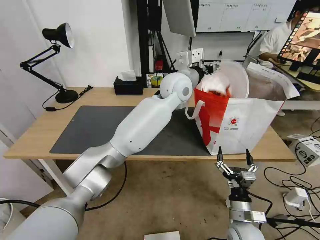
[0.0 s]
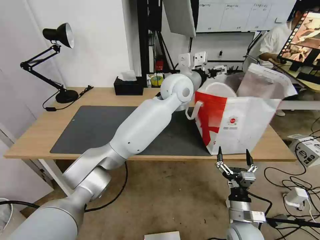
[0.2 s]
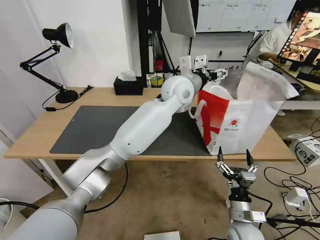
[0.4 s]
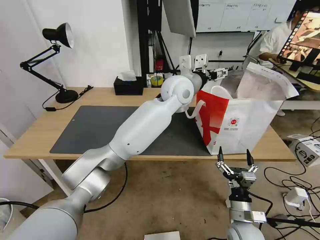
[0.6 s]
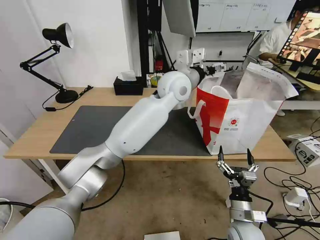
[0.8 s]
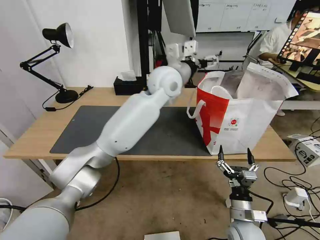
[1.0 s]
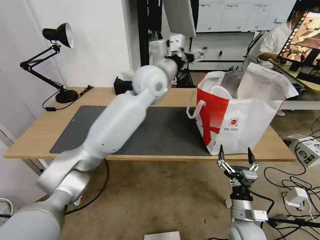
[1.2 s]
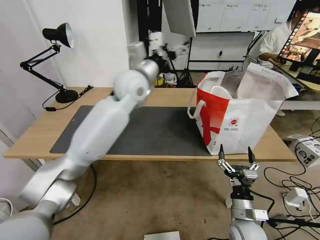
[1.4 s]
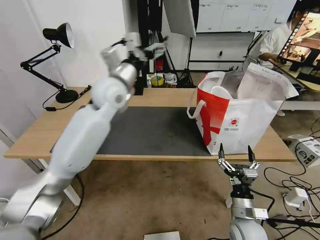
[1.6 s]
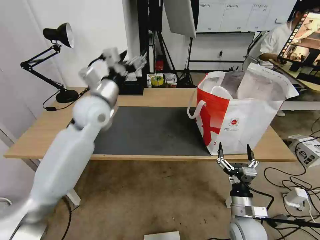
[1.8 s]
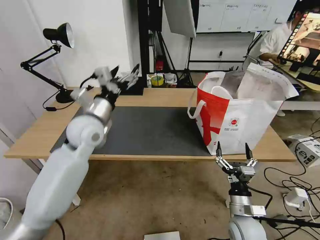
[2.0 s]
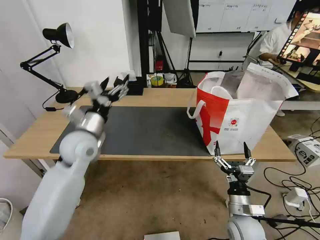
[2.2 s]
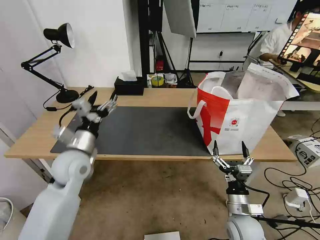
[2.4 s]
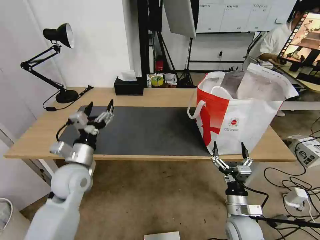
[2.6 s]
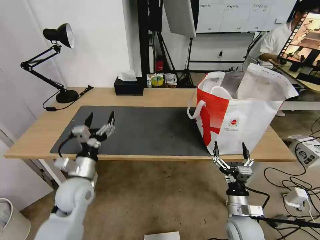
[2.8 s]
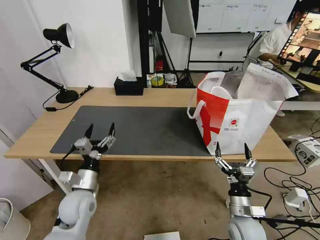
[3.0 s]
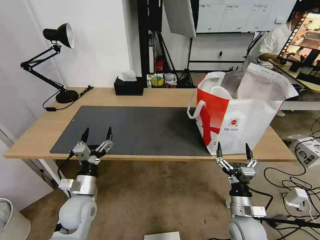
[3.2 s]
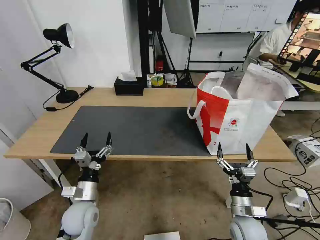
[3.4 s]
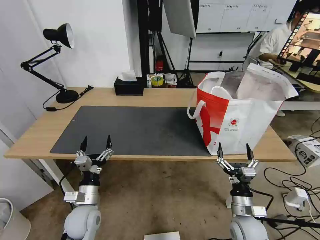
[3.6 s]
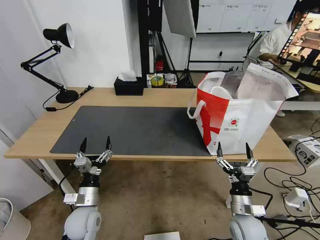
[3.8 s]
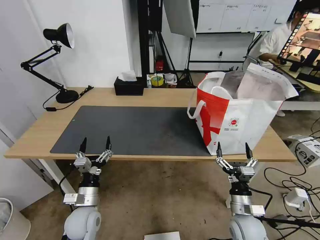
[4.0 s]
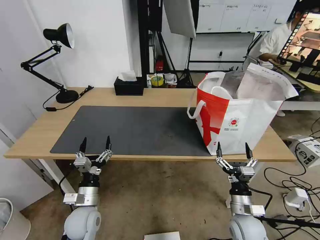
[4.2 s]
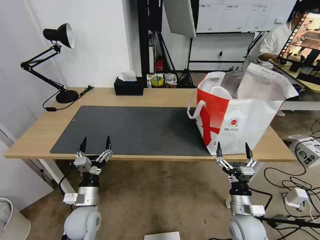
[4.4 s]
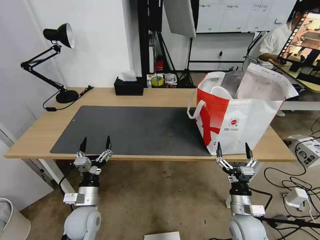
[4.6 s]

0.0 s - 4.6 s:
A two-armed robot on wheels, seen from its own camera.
Task of the whole recording: Pick up the trash from the table and place it into the takeout bag.
0.0 s - 1.6 s: The left gripper travels to the left by some 20 cm.
1.6 s - 3.0 s: The left gripper is displaced downward and backward by some 35 cm.
3.0 s - 4.6 s: The left gripper moves downward, roughly 5 cm.

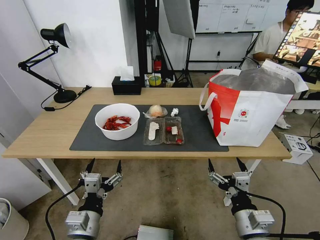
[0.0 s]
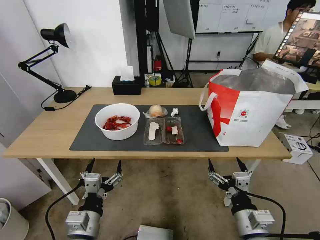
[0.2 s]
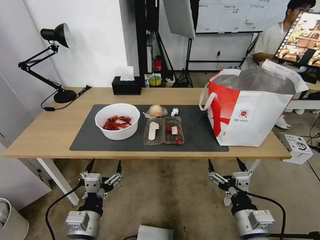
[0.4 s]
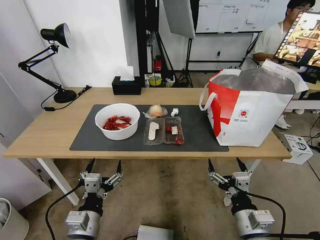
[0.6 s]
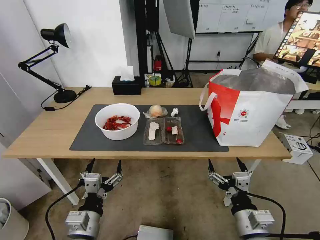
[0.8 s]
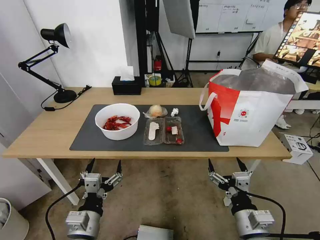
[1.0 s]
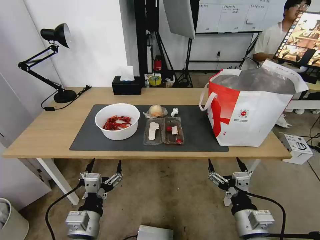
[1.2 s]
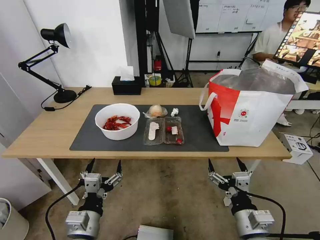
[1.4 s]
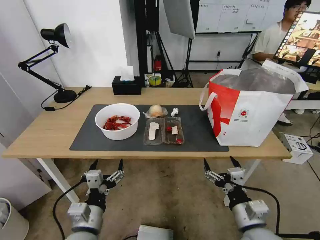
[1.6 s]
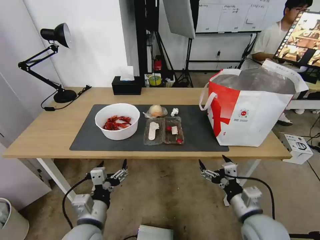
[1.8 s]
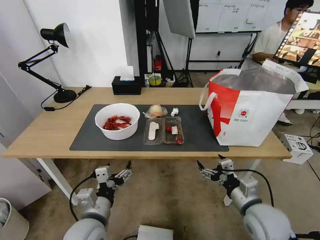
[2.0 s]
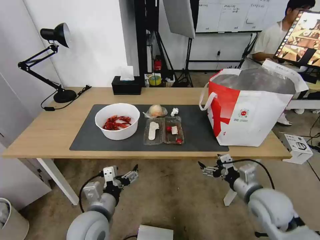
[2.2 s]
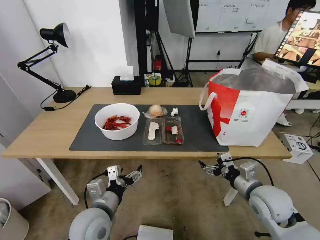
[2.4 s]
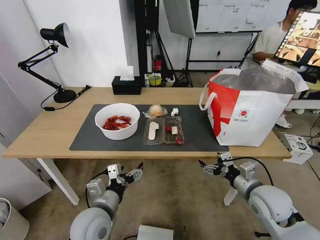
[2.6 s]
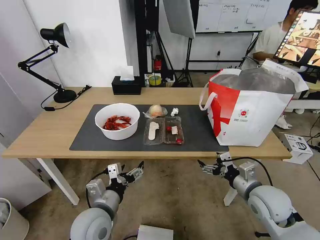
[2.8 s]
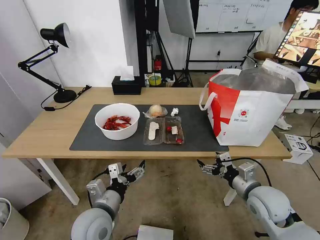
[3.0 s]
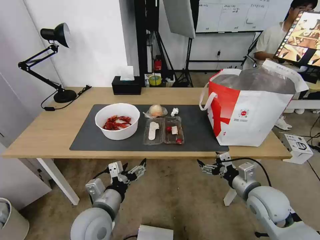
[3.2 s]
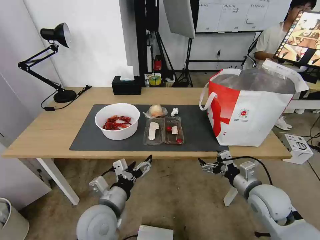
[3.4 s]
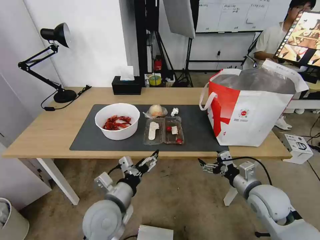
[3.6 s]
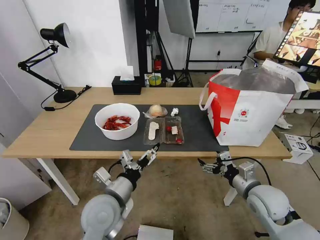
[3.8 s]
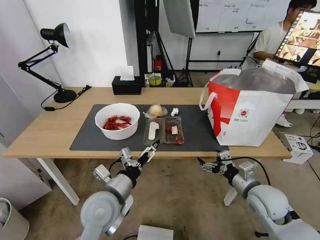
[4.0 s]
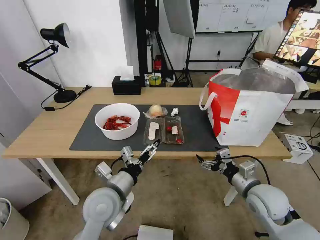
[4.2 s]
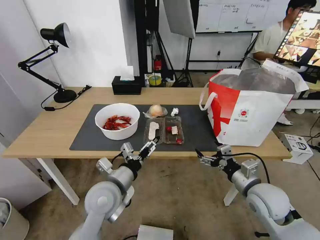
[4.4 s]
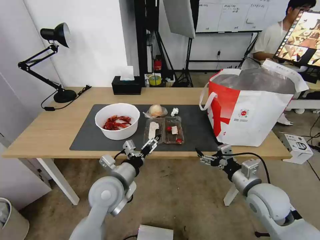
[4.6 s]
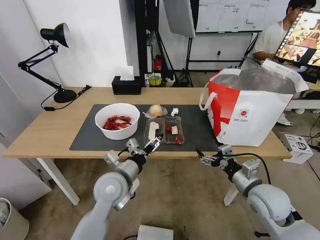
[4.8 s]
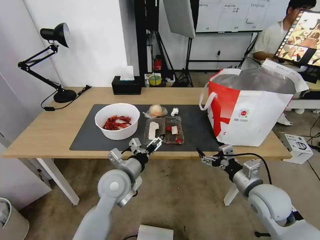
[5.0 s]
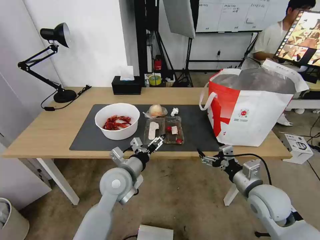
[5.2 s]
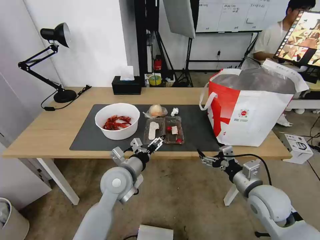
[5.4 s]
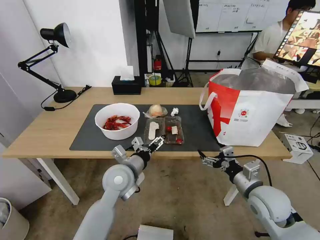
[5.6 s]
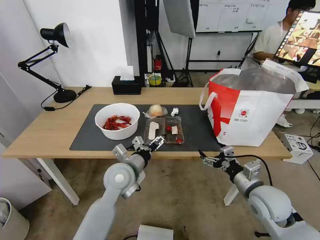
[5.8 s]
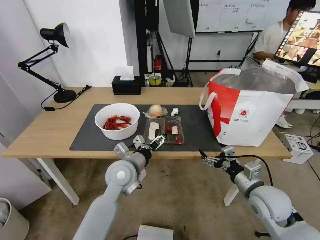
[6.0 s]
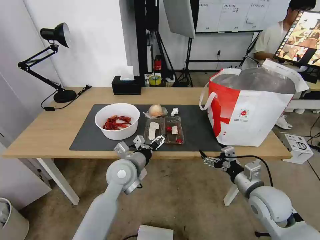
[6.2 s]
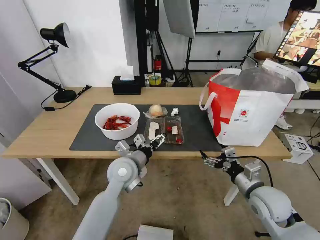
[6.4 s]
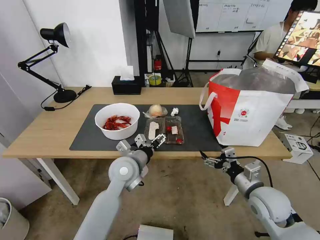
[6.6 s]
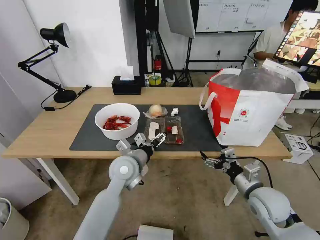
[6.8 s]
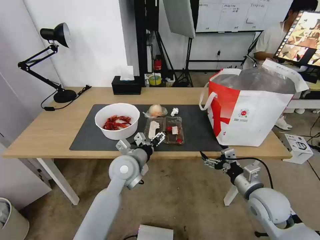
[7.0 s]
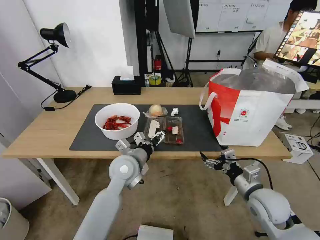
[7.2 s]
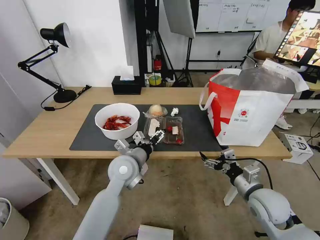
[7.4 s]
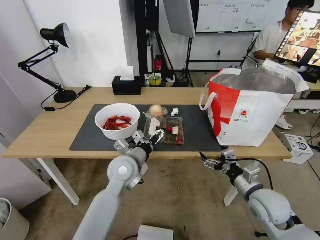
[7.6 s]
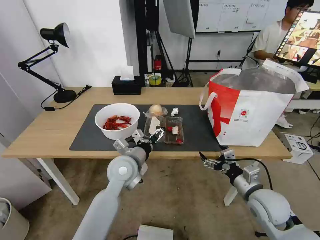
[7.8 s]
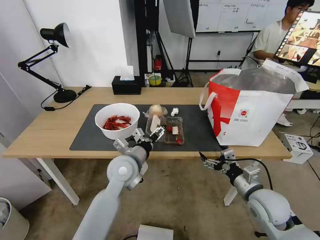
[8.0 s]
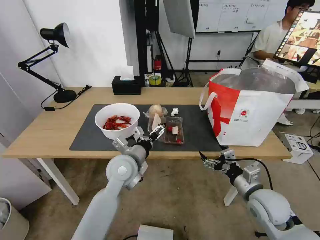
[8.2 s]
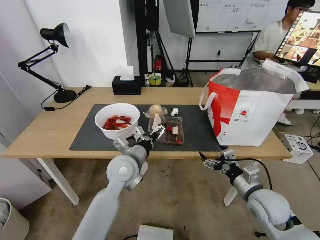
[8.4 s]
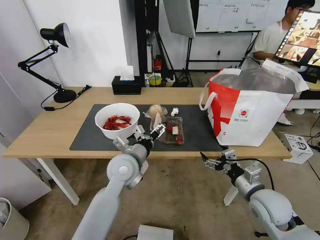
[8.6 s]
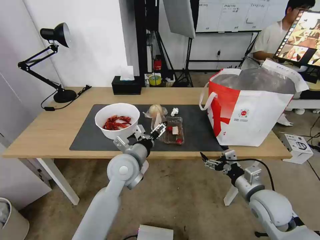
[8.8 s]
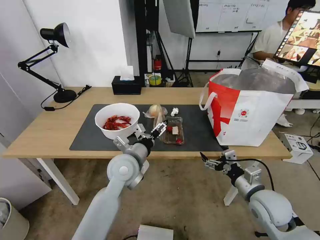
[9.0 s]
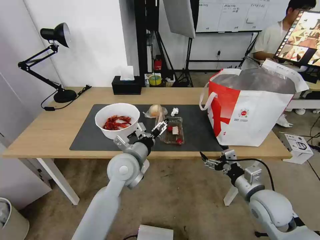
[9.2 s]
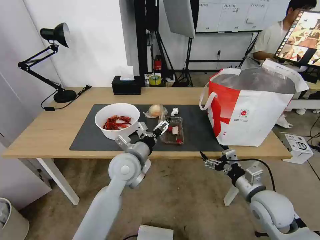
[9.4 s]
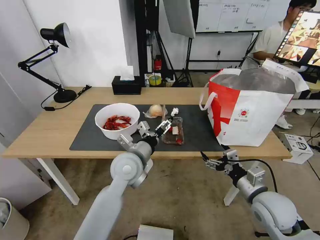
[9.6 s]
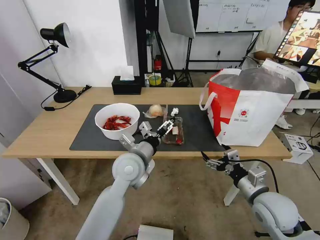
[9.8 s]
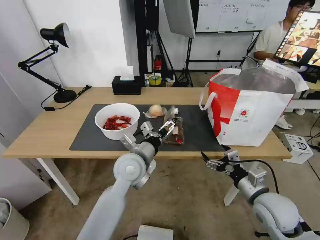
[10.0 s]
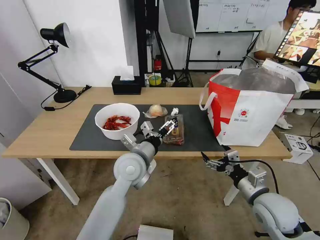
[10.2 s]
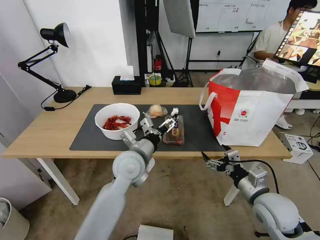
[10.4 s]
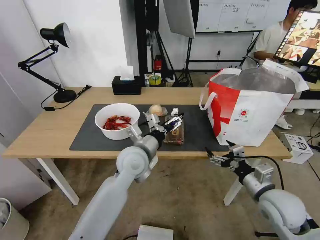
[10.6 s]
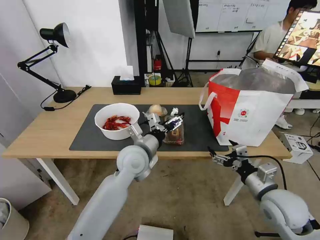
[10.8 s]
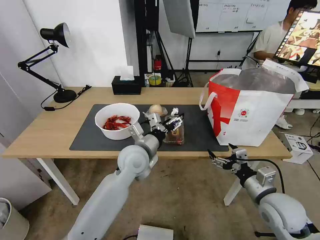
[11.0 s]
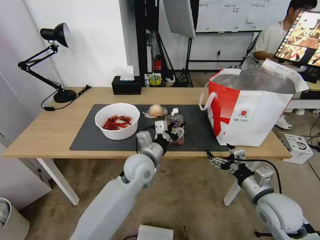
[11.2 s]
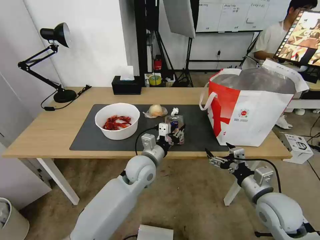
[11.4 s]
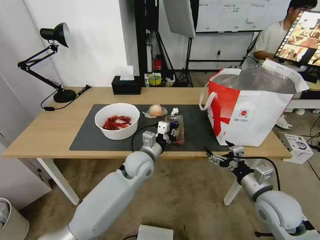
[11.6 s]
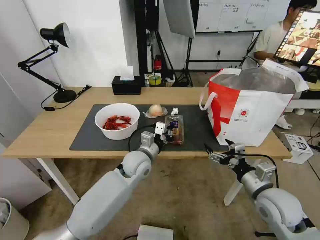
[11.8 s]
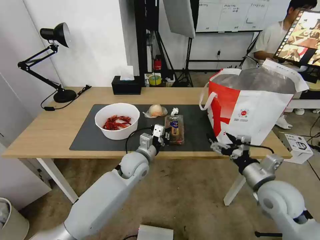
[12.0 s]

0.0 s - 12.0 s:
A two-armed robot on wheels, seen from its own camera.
Task of the whole recording: Pick up the trash from the table and place it into the takeout bag.
1.6 s - 3.0 s: The left gripper goes roughly 5 cm forward. The right gripper travels forward and to the right by about 10 cm.
3.0 s - 4.4 s: The left gripper moves forward, about 5 cm.
4.4 s - 6.0 s: The left gripper moves forward, some 5 cm.
6.0 s - 10.4 s: The grippers make only small movements.
10.4 s - 12.0 s: The left gripper goes approximately 10 cm downward, and closes.

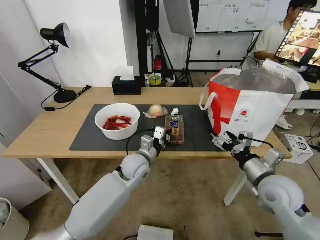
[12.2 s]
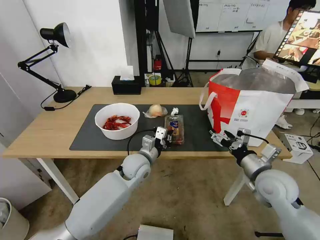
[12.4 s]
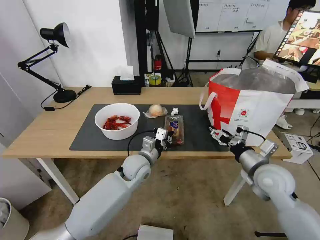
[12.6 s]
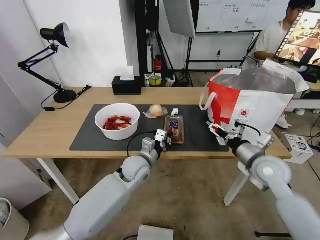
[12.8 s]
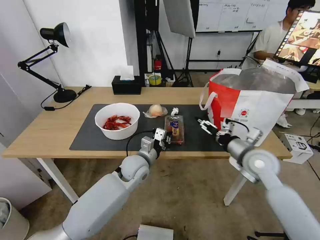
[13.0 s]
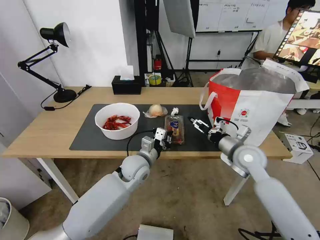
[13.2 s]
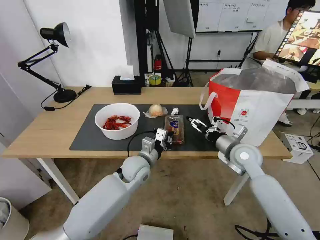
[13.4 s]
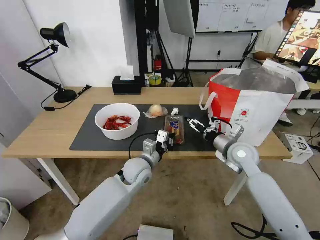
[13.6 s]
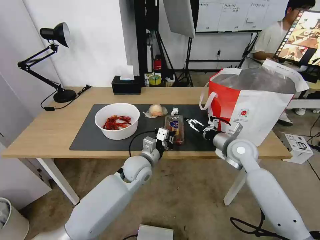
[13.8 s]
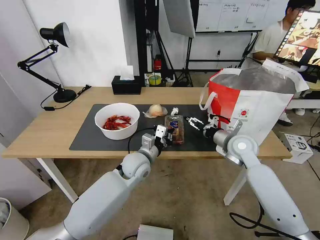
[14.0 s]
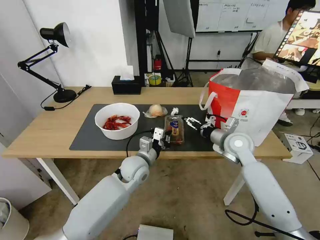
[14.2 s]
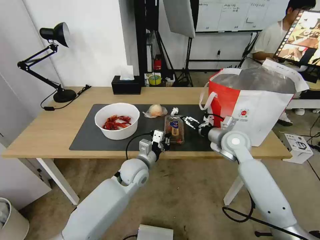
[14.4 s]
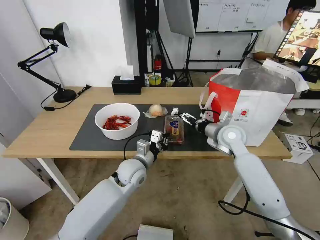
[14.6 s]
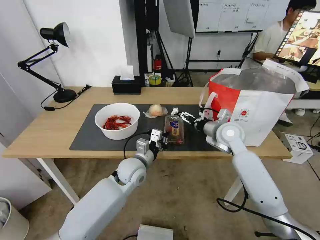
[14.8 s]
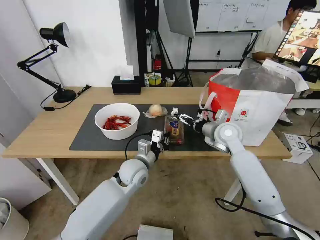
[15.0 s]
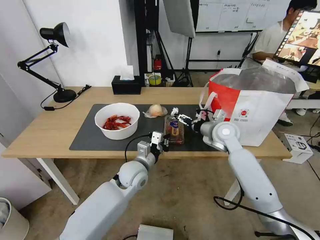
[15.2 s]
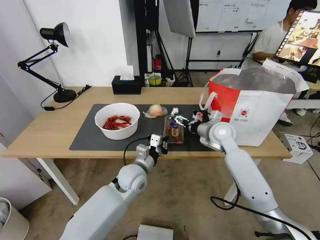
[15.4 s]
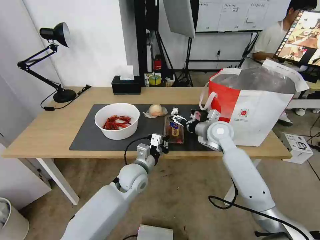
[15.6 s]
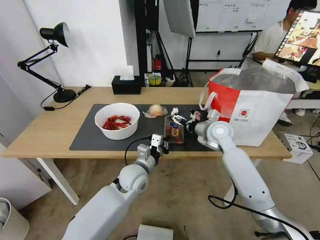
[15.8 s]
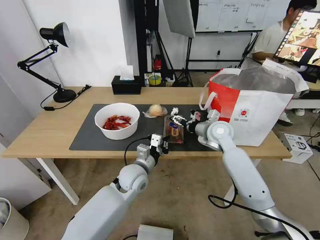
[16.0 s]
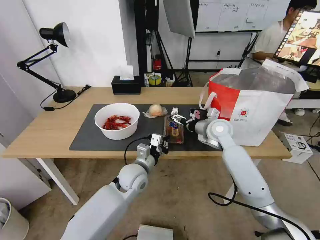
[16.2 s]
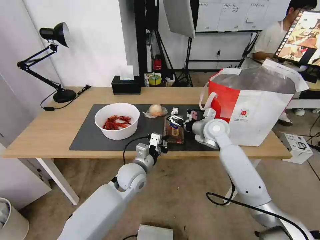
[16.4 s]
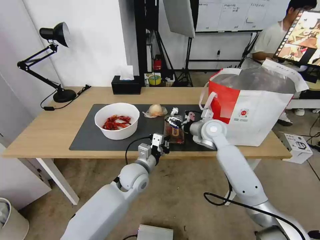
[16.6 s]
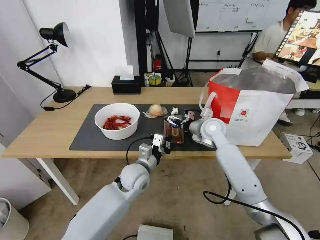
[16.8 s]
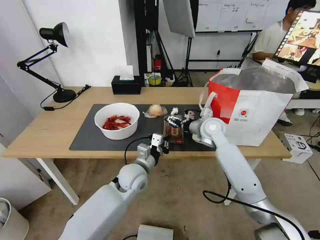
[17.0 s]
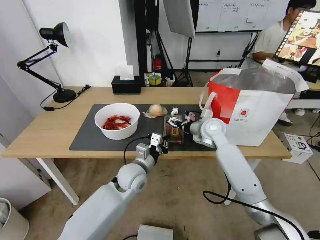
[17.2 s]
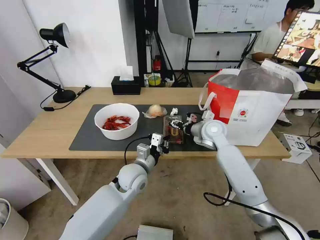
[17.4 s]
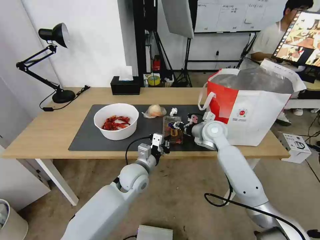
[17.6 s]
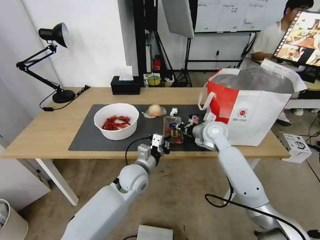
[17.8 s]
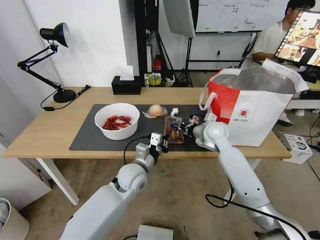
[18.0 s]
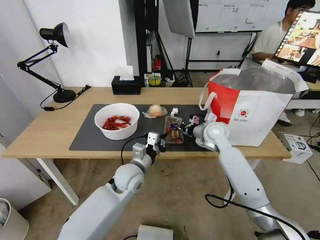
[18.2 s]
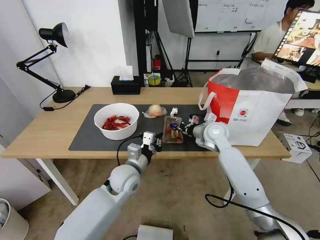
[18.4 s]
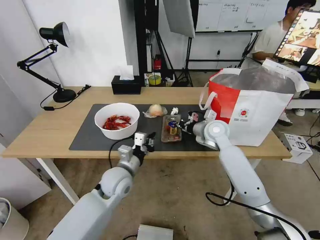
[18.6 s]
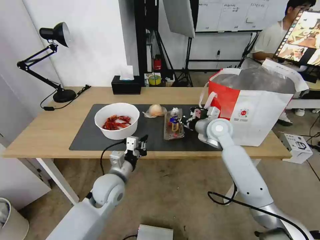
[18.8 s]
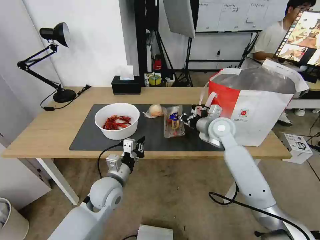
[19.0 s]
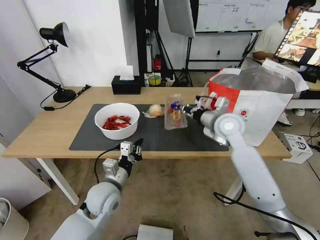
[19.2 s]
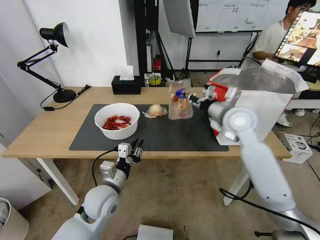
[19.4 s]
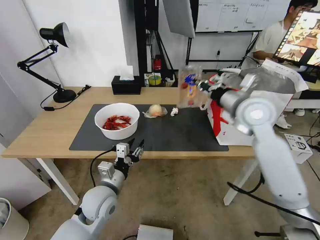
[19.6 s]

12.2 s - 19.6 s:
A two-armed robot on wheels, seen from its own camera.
Task of the whole recording: Pick up the trash from the table and place it into the takeout bag.
12.2 s - 13.6 s: The right gripper goes about 15 cm forward.
13.6 s - 15.2 s: The right gripper travels forward by about 5 cm.
15.2 s - 16.6 s: The grippers move only a little.
16.6 s - 18.2 s: The right gripper closes.
18.2 s - 19.6 s: The left gripper moves to the left and backward, approximately 10 cm, and opens its fingers. Meanwhile the right gripper goes roughly 15 cm upward.
